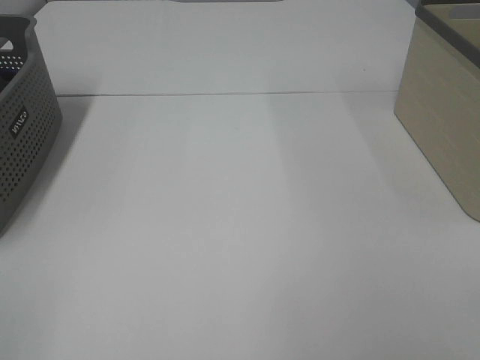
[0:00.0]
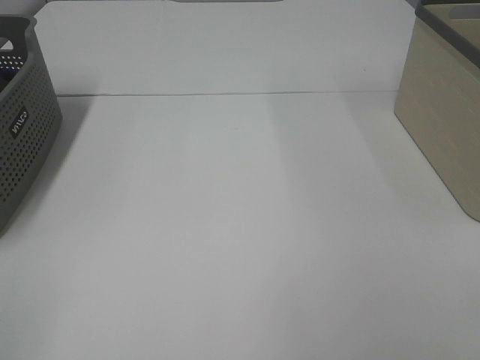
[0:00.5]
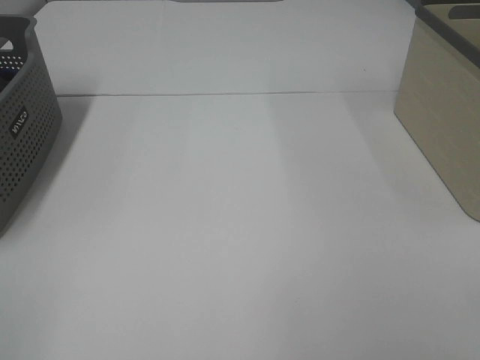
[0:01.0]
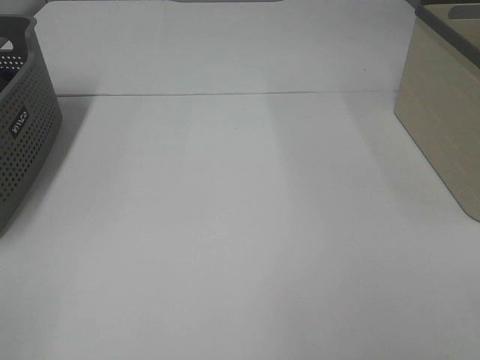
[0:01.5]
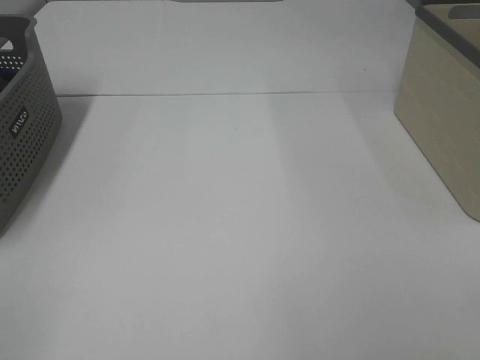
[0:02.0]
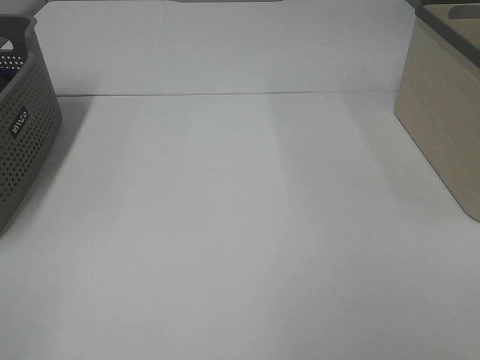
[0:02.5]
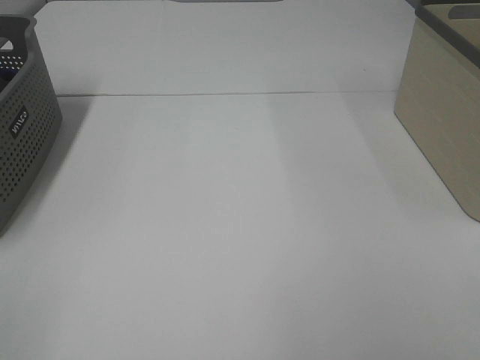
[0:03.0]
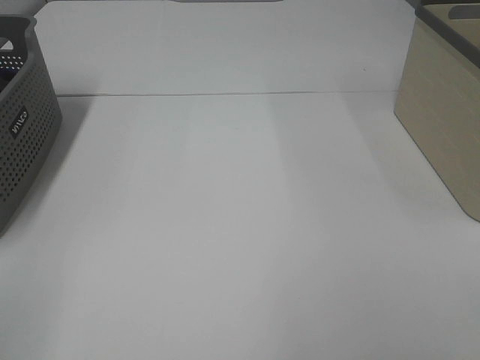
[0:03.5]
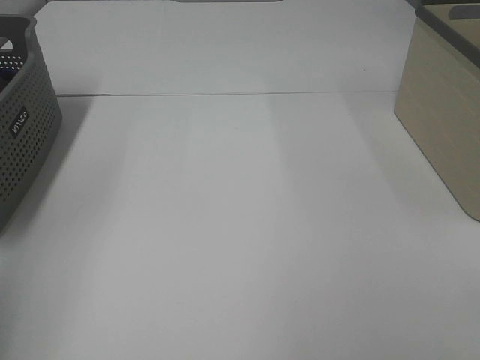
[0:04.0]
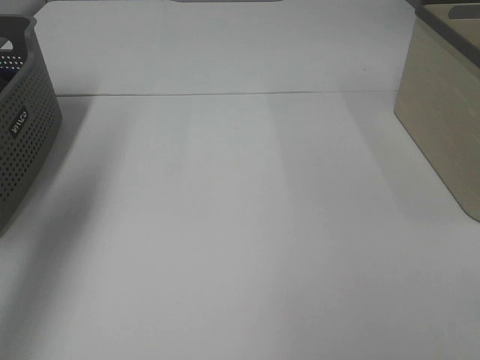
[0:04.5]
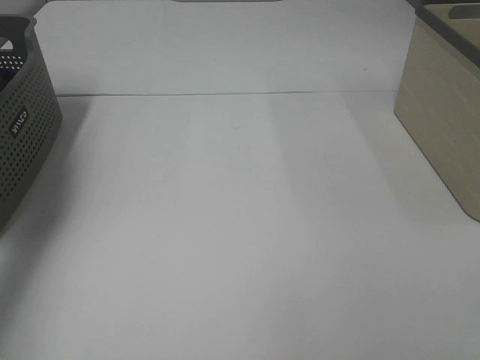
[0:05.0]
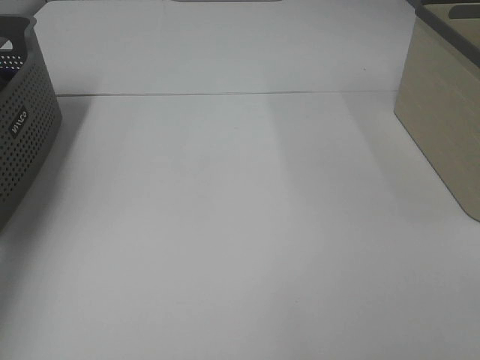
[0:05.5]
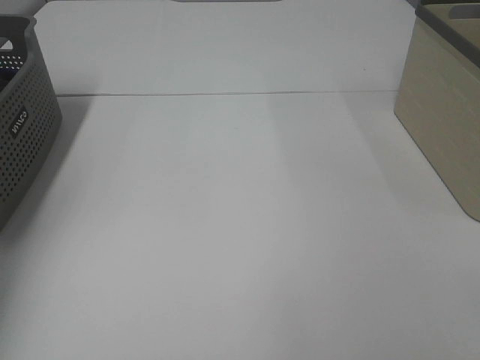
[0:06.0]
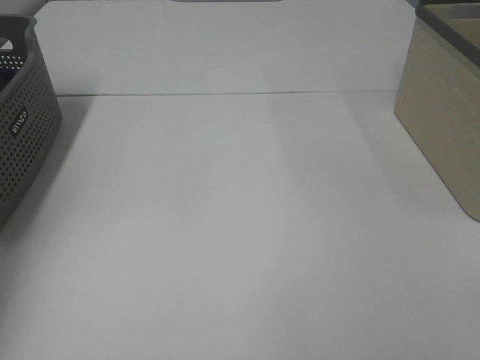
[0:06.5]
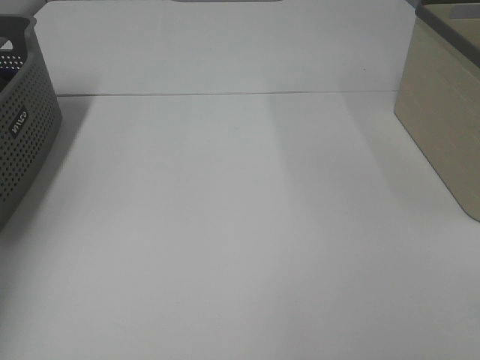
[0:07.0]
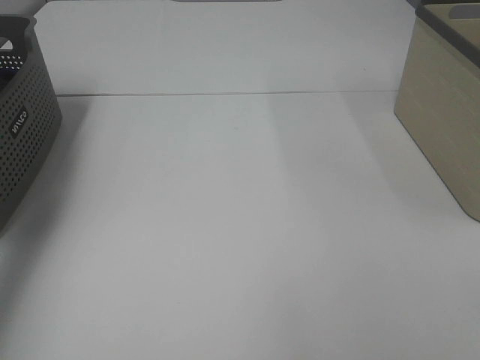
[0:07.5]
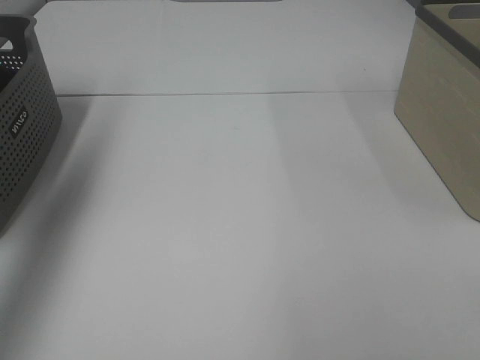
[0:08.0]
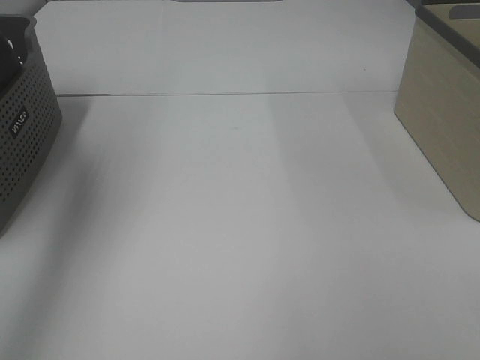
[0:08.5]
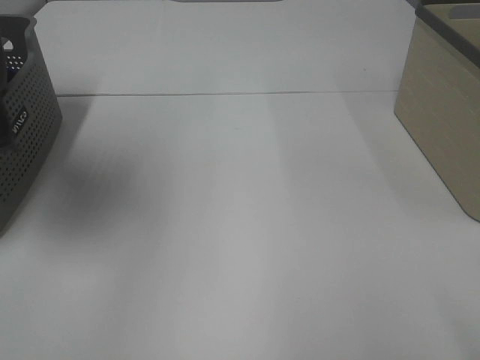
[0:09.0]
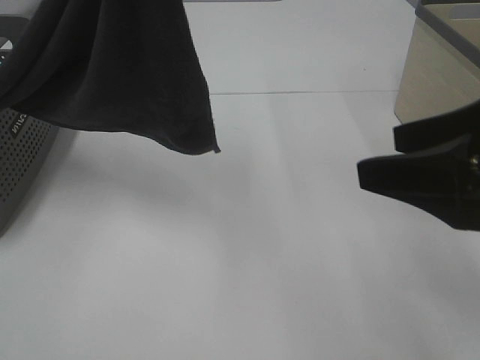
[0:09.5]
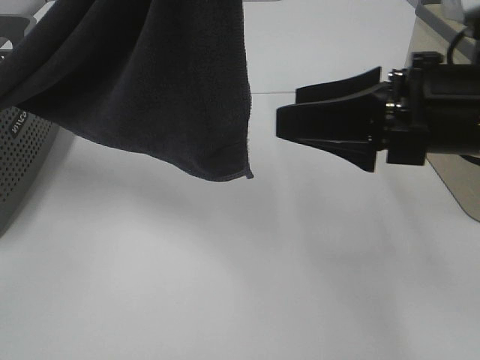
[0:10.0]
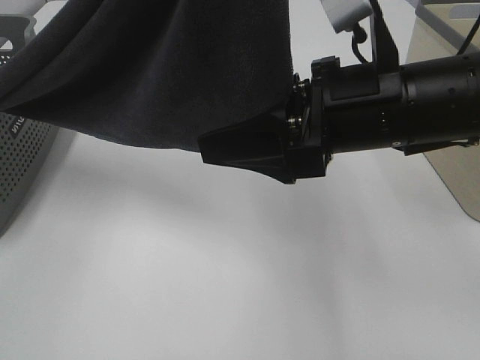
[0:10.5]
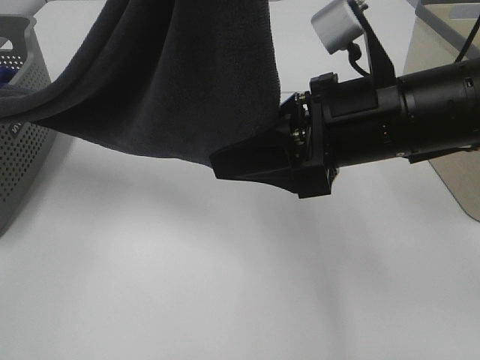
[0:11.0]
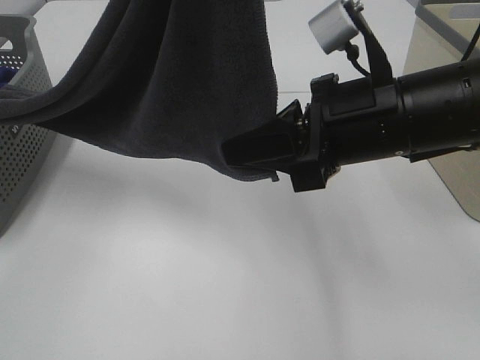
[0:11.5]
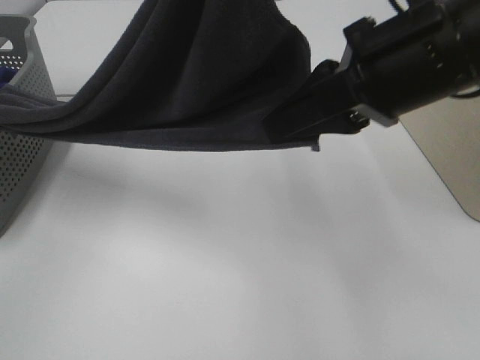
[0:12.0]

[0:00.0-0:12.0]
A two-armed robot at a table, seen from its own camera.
Task of the whole recording: Remove the towel and place it.
Step, 0:08.5 to 0:11.0: Right hand: grab a corner of the grey towel and straighten it.
0:02.0 to 0:04.0: The left gripper heads forward and upward, covering roughly 15 cm.
0:06.0 to 0:08.0: The left gripper moves upward, backward and to the right, approximately 20 cm, and closes.
0:08.0 to 0:10.0: The right gripper shifts some 25 cm forward and to the left. The left gripper moves to the right and backward, approximately 30 cm.
0:10.0 to 0:12.0: The right gripper heads upward, covering approximately 5 cm, and closes.

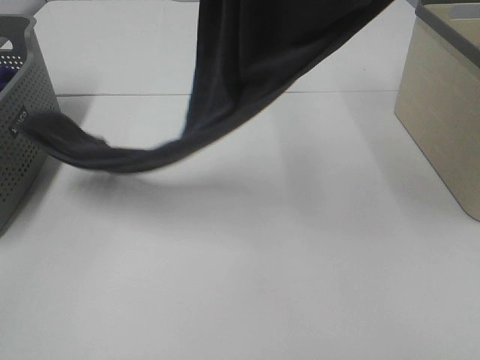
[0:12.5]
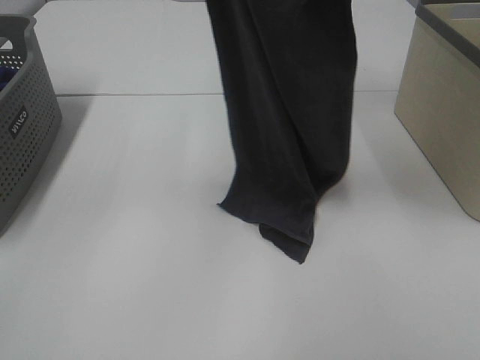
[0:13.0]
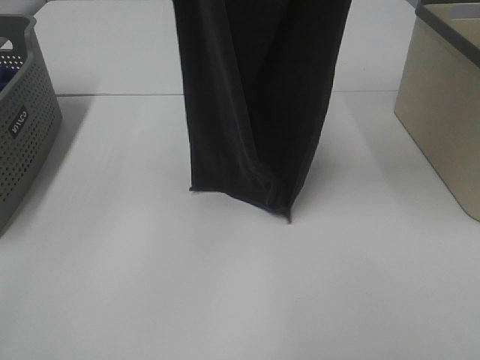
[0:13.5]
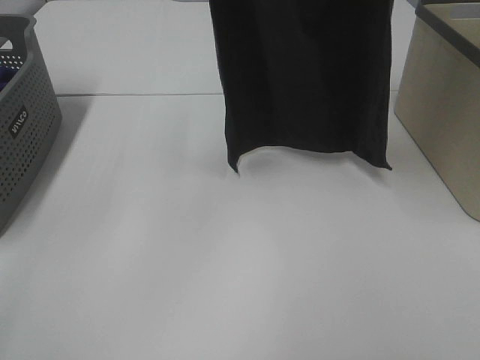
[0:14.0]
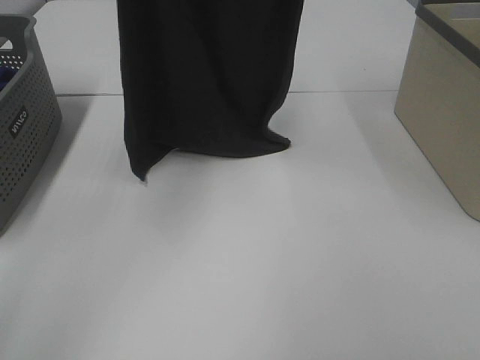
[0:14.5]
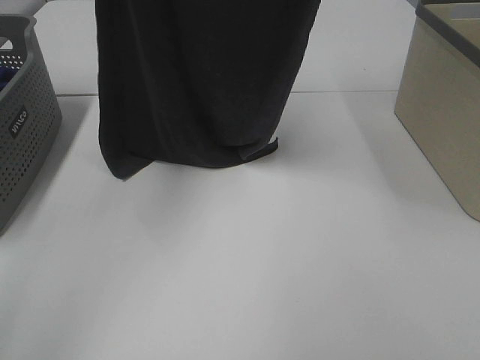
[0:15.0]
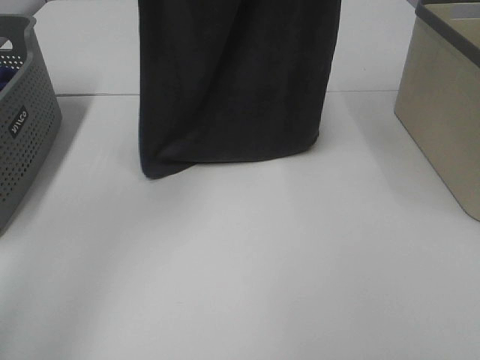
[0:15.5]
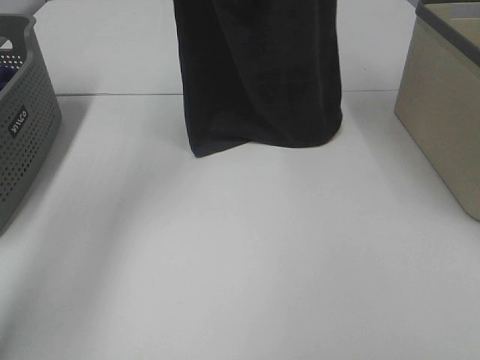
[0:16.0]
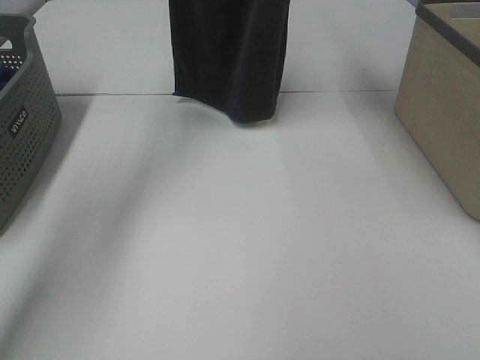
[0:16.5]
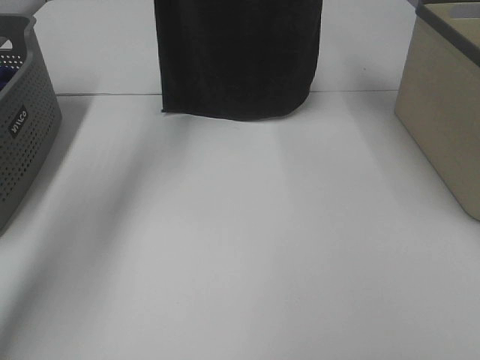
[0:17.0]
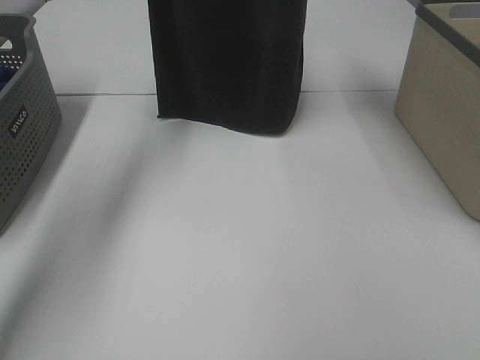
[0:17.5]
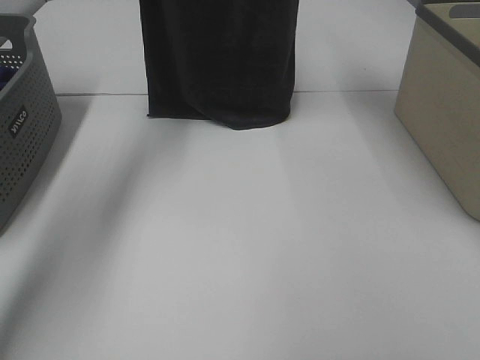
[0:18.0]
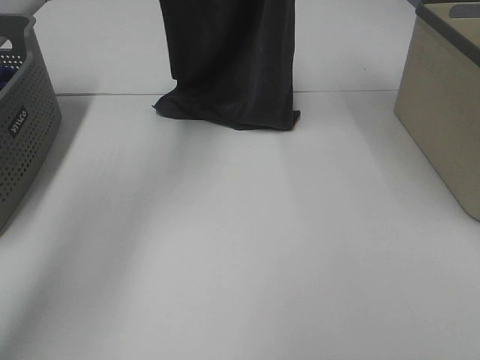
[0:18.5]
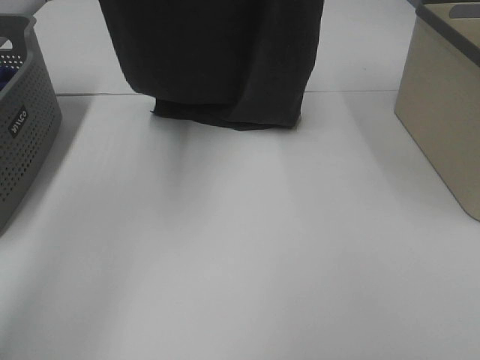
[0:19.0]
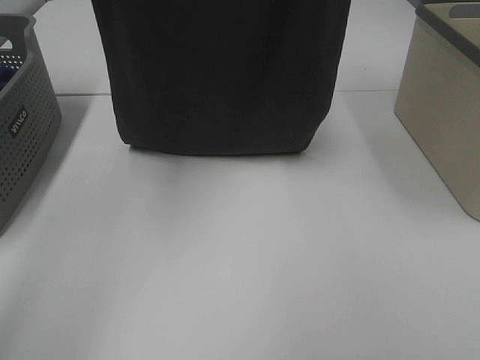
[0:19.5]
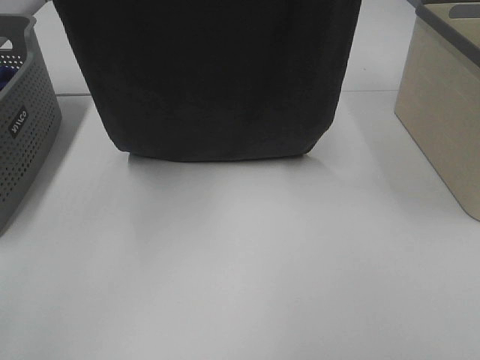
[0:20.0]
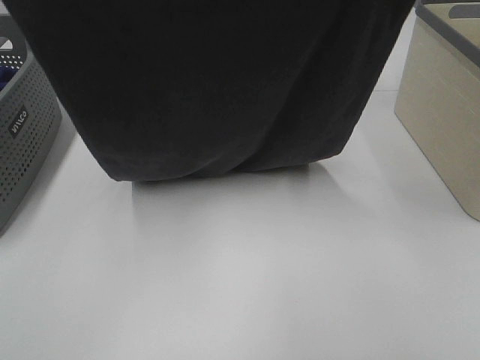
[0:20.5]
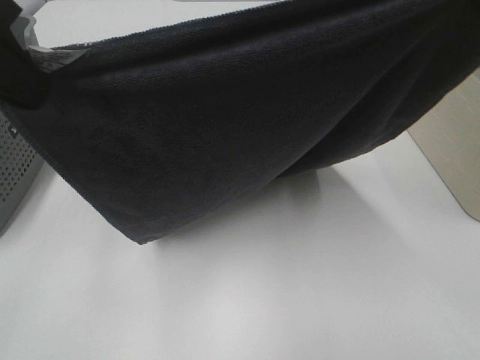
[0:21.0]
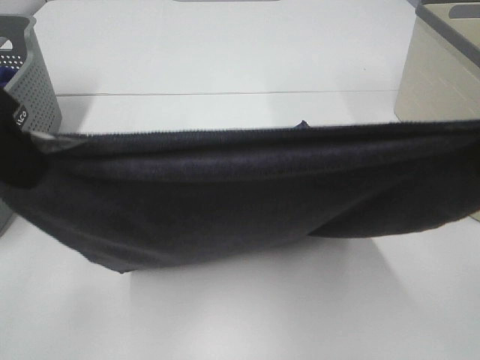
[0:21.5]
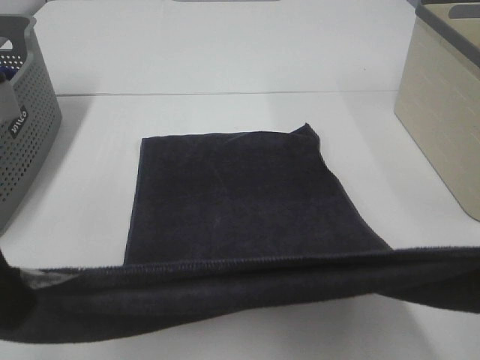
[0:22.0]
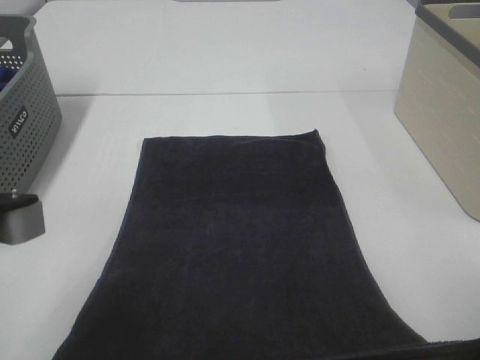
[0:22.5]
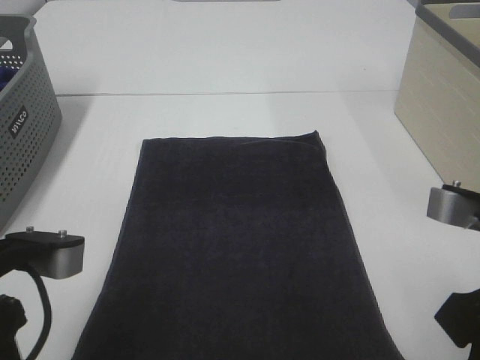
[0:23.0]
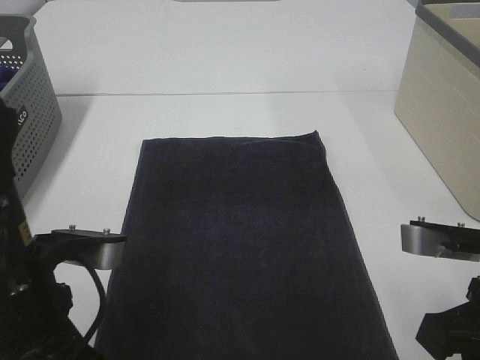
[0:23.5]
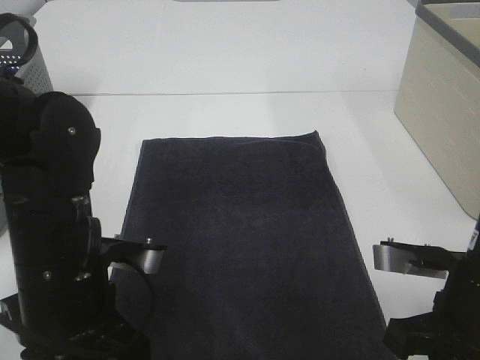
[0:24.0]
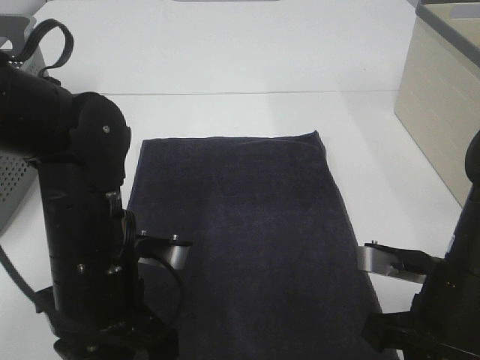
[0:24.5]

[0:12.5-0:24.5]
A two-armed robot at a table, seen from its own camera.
Task of the whole recording: Remove the towel and place it.
Step, 0:12.5 to 0:20.0: Left hand: spread the grey towel flat on the table.
Step, 0:12.5 to 0:20.0: Right hand: spread the grey towel flat on the table.
0:12.5 to 0:14.5: The left gripper travels forward and to the left by some 15 cm. The right gripper shifts roughly 5 cm forward.
0:14.5 to 0:16.5: The two grippers go some 10 cm forward.
0:18.5 to 0:20.5: Both grippers travel together backward, roughly 20 cm.
0:20.5 to 0:22.5: Both grippers move downward and backward, some 25 cm.
0:22.5 to 0:24.5: The left gripper heads downward, forward and to the right, covering some 15 cm; the right gripper moves downward and forward, some 15 cm.

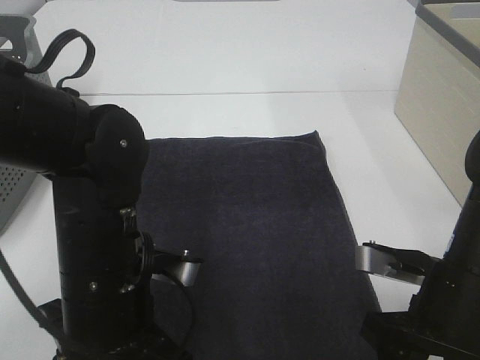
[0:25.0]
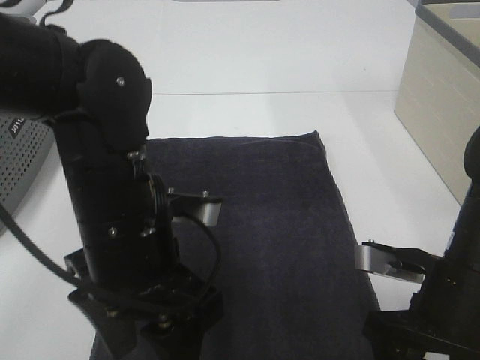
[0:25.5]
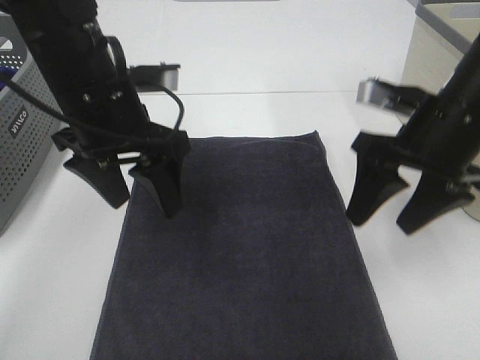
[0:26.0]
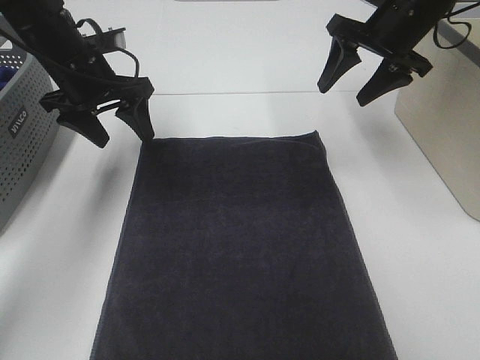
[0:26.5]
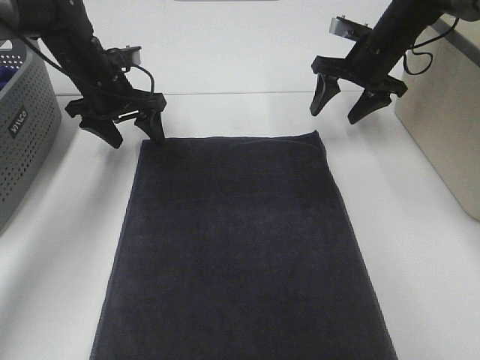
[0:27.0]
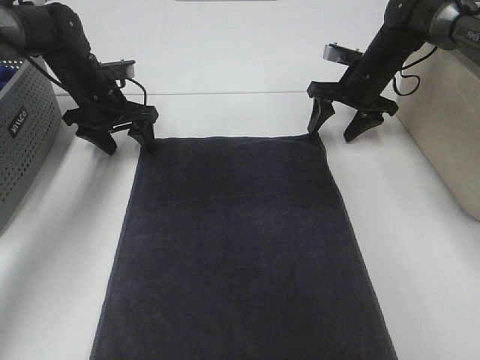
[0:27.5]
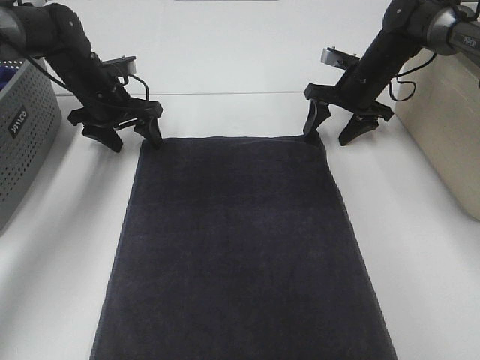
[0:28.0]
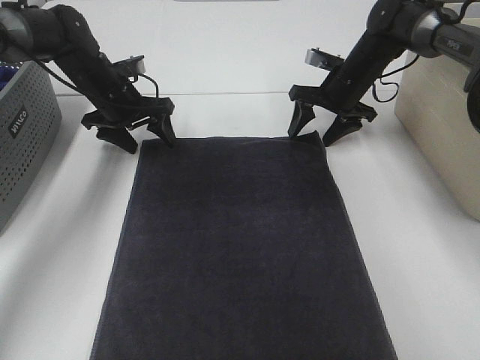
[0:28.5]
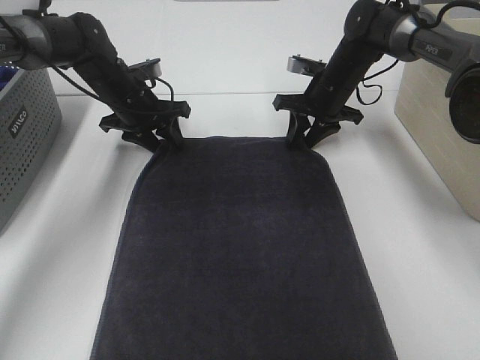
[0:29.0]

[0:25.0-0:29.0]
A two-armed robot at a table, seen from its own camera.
Task of the whole recording: Remove the towel and place it.
Step, 0:25.0 to 0:27.5: Left hand:adjust the gray towel.
Step, 0:25.0 to 0:27.5: Right hand:adjust the gray towel.
0:25.0 to 0:27.0: The two grippers go approximately 35 cm forward. The left gripper opens up.
0:27.0 to 0:29.0: The right gripper goes roughly 10 cm downward and to the left, and closes its fingers. The left gripper changes place by approximately 5 cm.
